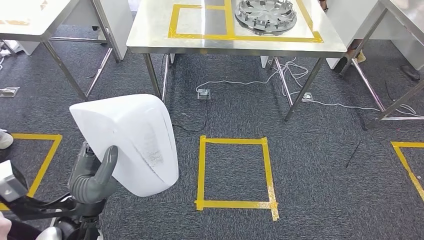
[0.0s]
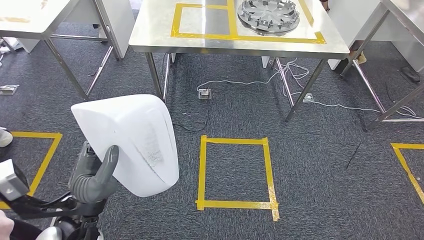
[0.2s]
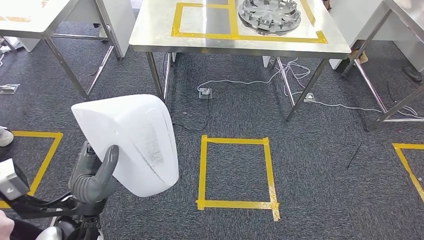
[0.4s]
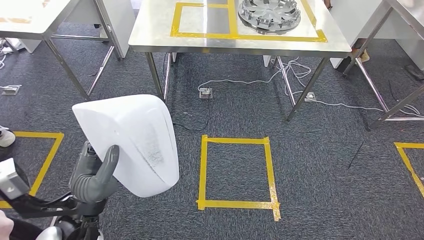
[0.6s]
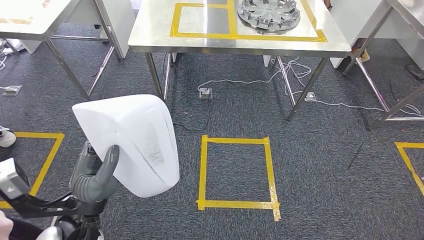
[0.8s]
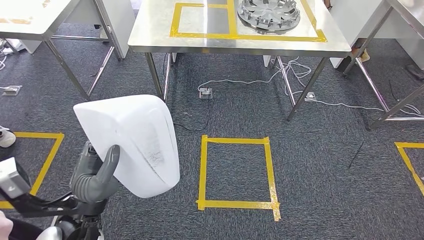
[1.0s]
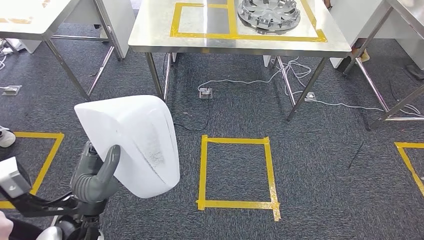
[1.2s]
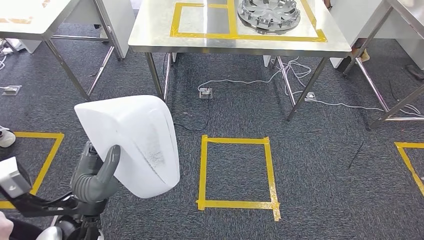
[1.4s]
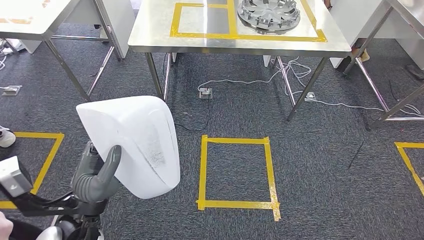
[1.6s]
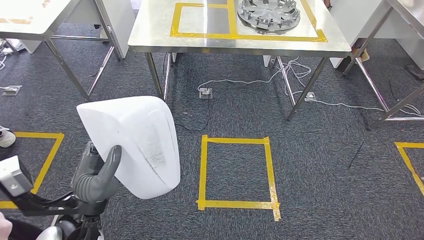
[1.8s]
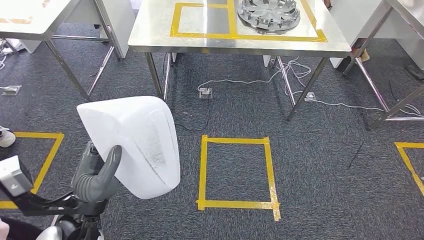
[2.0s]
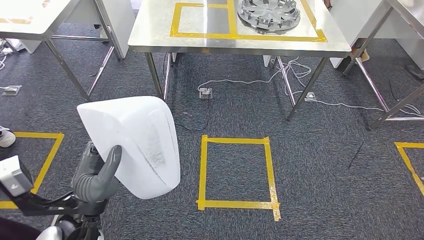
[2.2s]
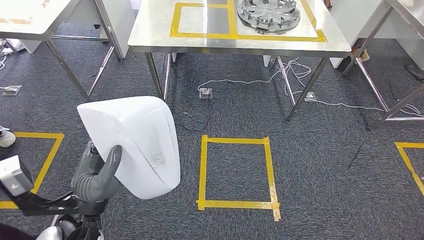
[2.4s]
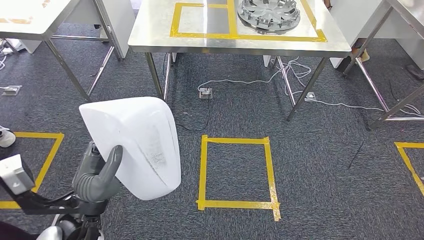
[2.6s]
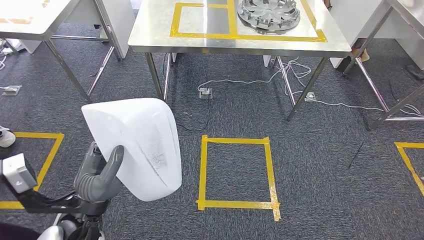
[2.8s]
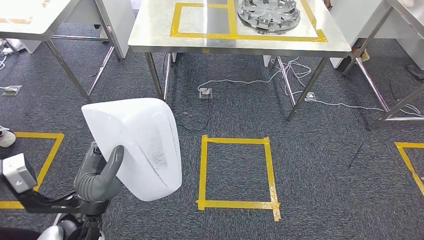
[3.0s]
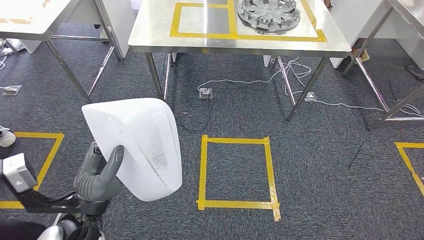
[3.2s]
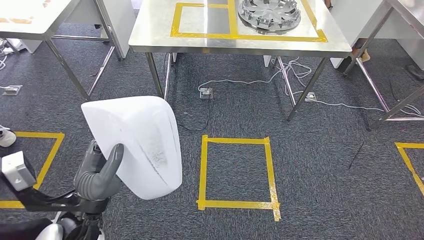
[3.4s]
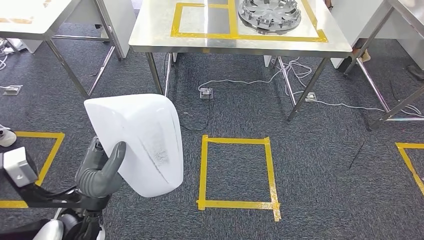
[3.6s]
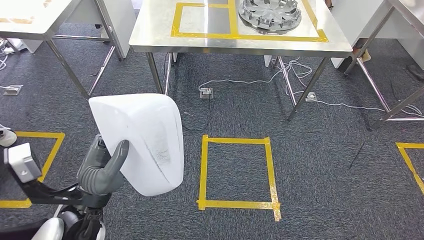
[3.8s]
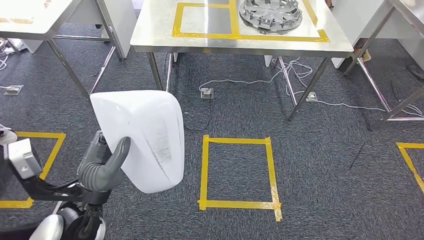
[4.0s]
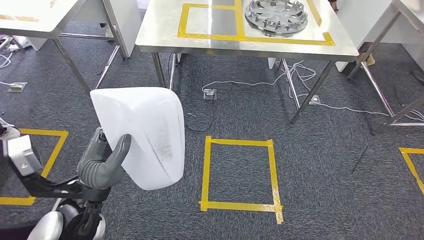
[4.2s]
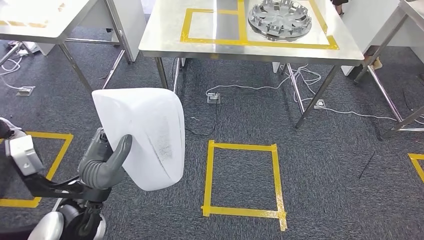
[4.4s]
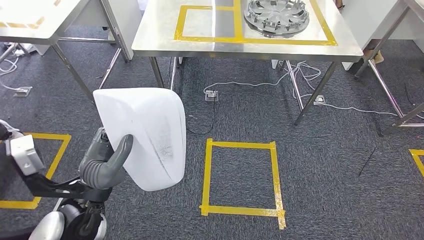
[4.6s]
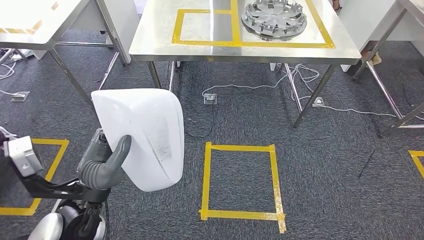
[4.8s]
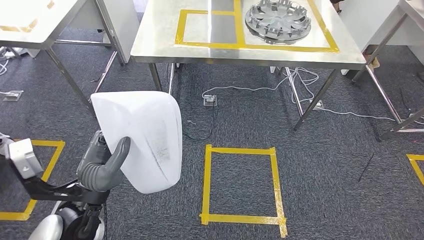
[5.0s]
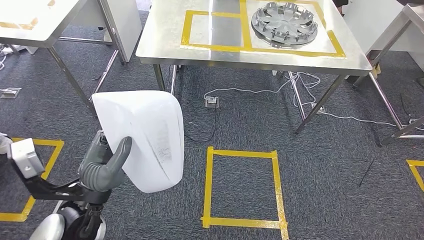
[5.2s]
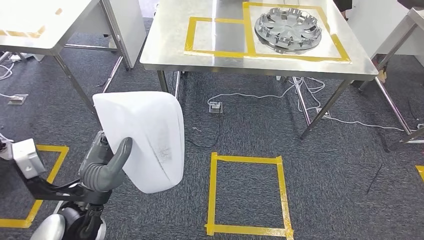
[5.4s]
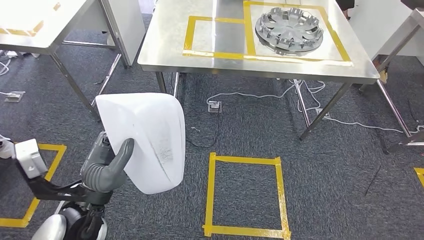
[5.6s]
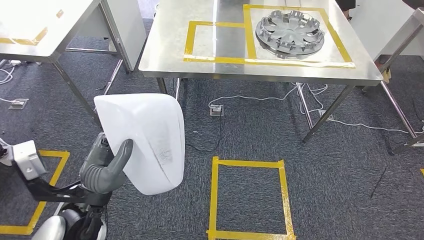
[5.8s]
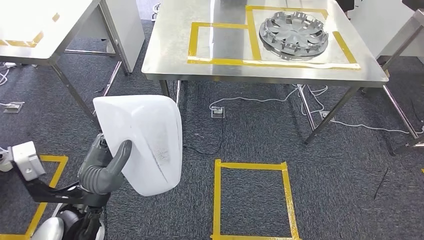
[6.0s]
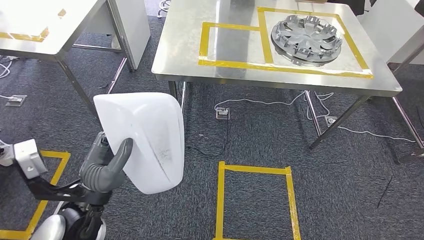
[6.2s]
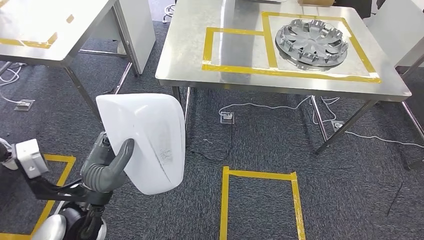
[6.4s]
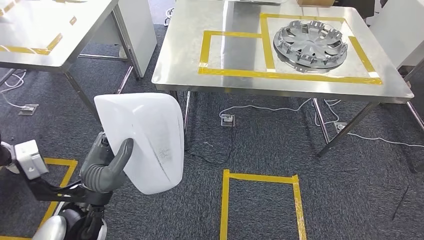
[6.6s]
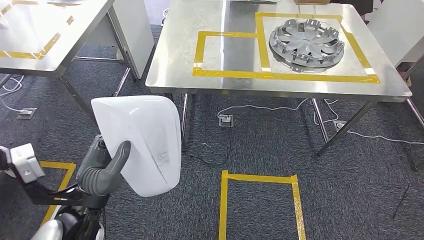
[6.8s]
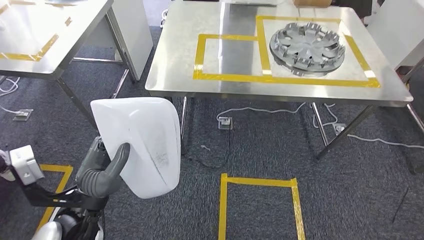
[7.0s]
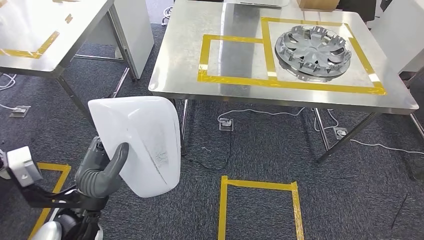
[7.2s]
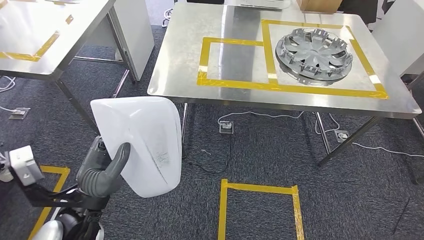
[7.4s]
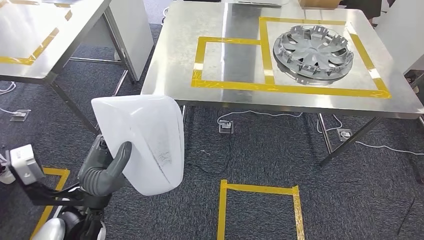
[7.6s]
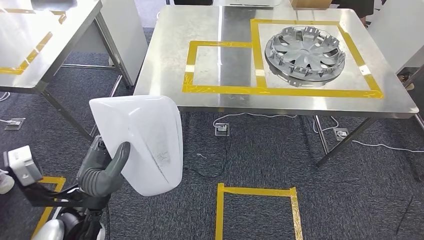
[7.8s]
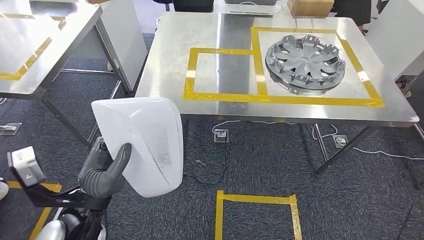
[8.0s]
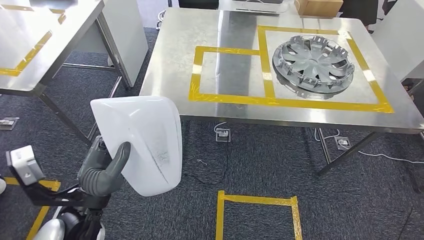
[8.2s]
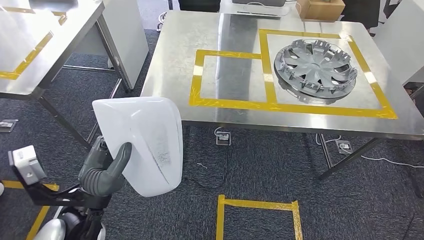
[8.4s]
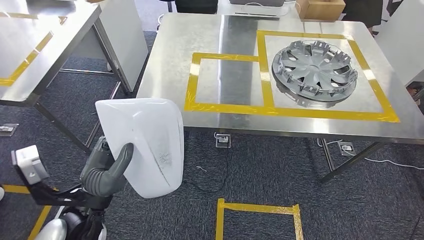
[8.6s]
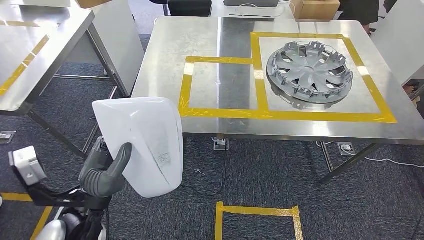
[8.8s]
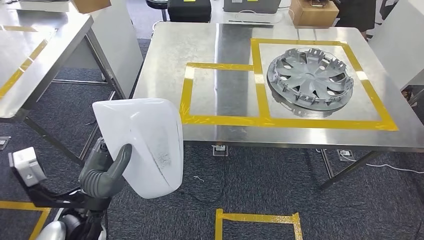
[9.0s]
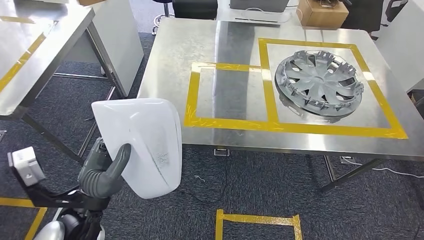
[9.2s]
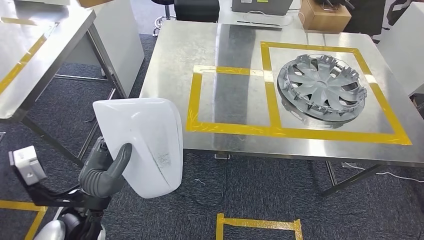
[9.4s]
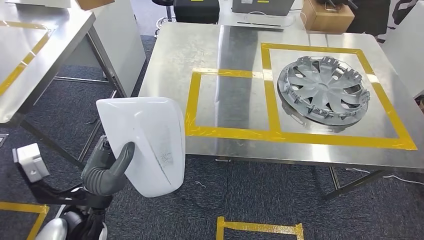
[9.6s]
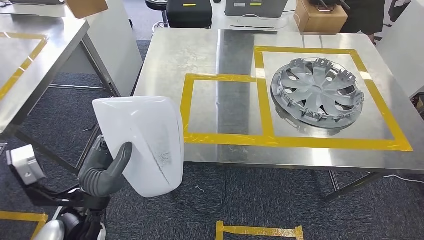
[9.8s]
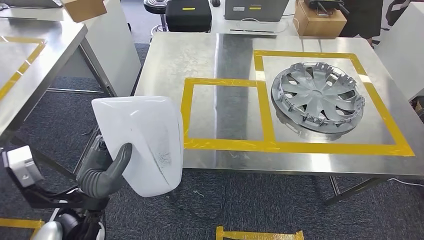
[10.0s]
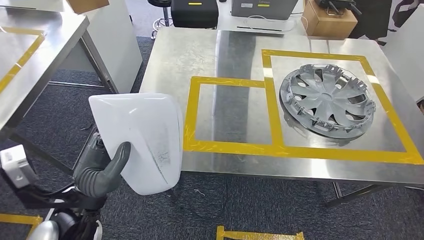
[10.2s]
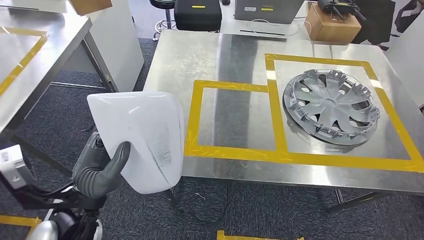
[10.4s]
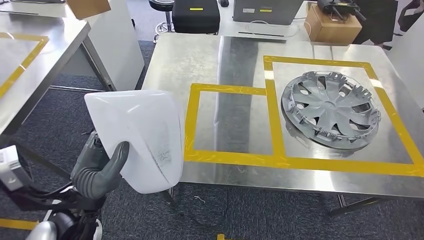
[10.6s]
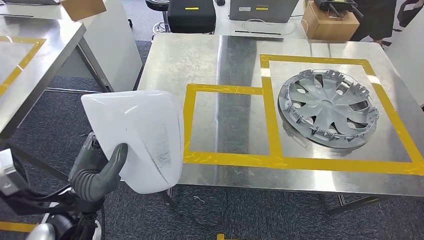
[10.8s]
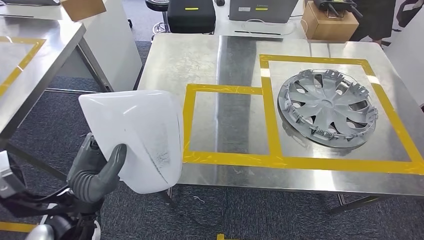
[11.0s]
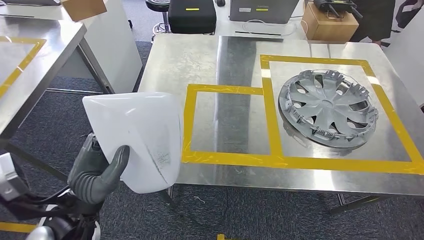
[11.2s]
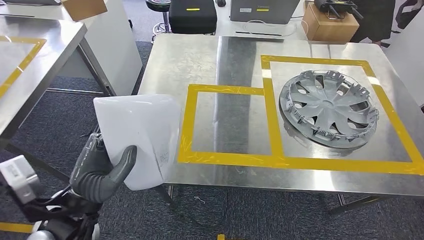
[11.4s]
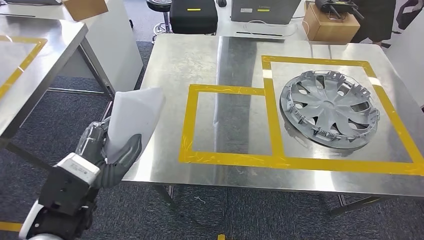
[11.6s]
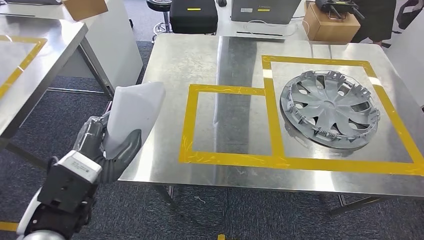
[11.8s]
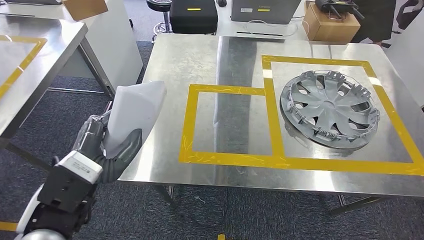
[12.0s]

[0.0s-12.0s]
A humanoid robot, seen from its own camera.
Step, 0.0s to 10.6s: Move the small component to the workbench.
0.0s to 1.6s: Both hands stay put.
1.6s to 3.0s: The two hands keep their place.

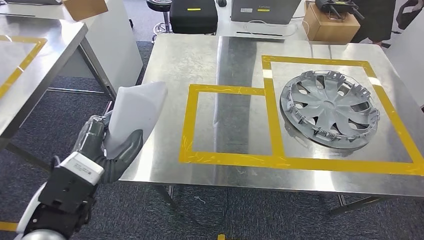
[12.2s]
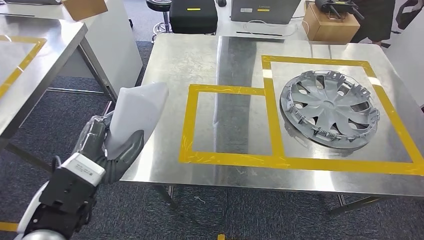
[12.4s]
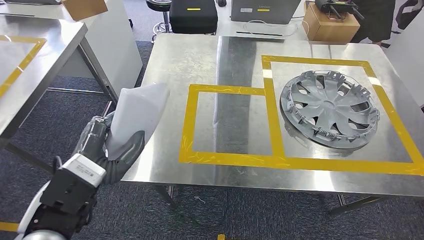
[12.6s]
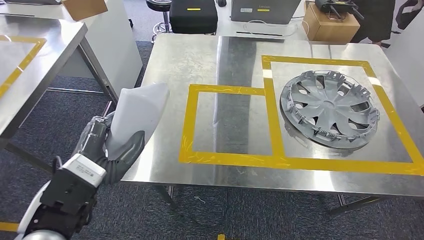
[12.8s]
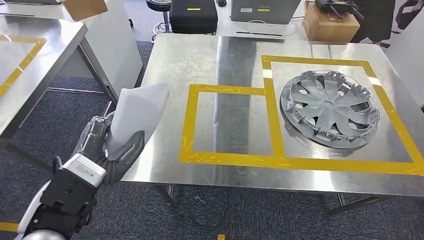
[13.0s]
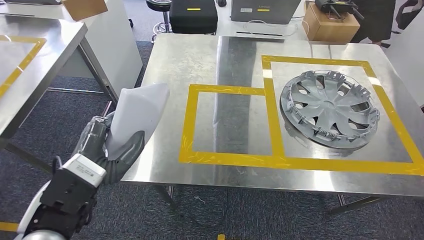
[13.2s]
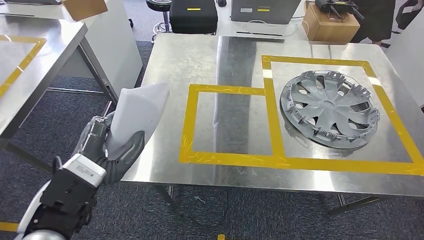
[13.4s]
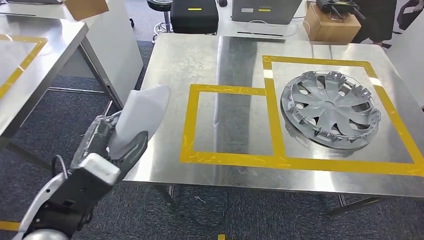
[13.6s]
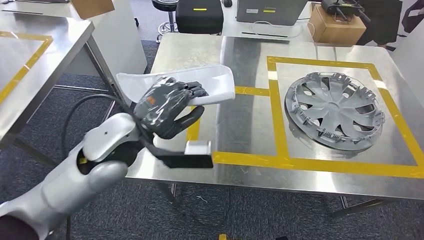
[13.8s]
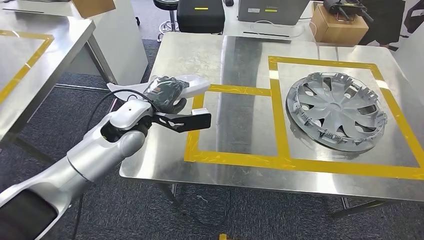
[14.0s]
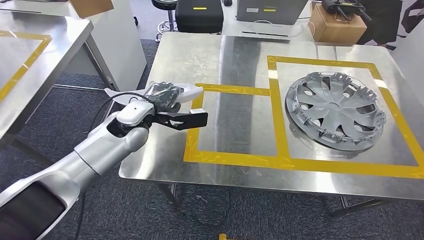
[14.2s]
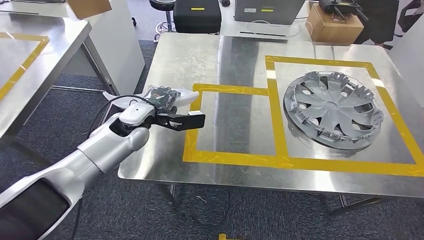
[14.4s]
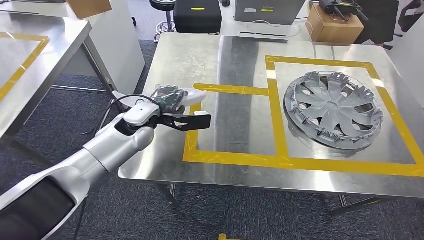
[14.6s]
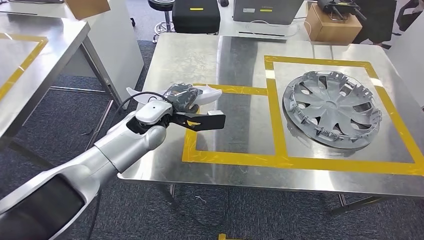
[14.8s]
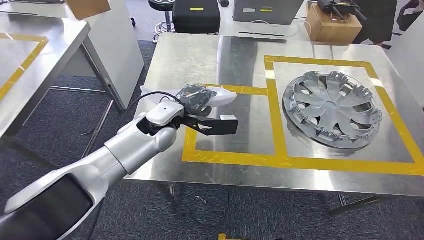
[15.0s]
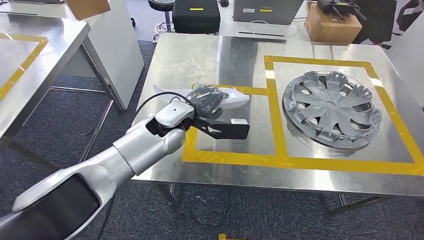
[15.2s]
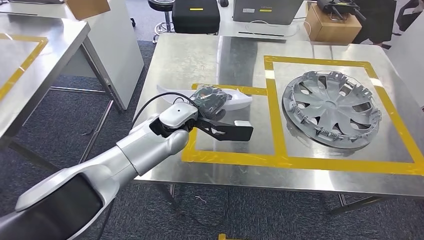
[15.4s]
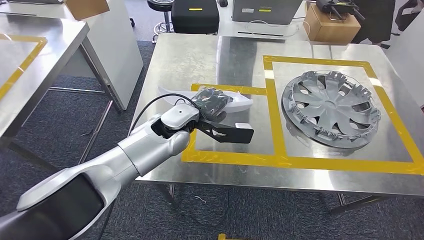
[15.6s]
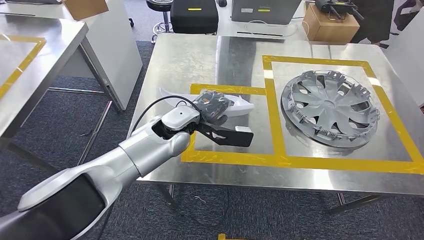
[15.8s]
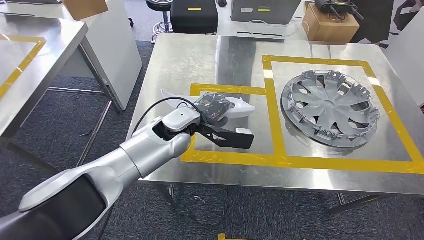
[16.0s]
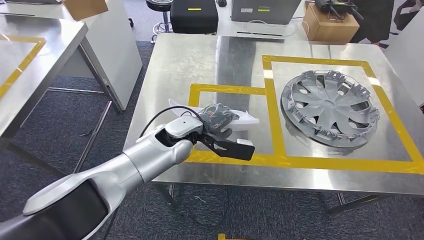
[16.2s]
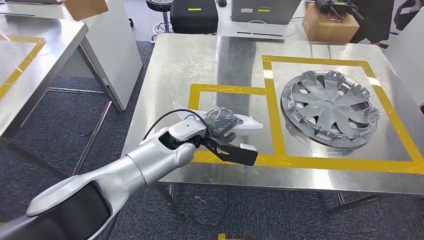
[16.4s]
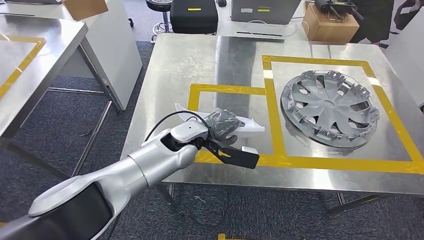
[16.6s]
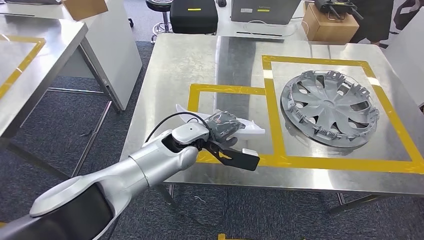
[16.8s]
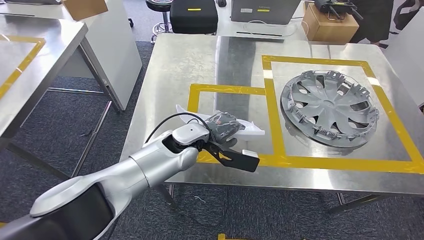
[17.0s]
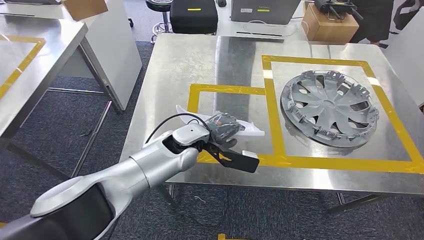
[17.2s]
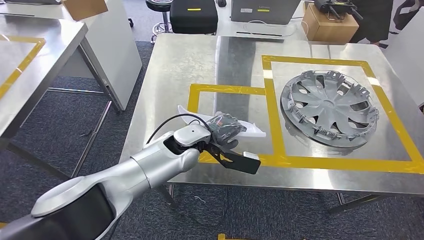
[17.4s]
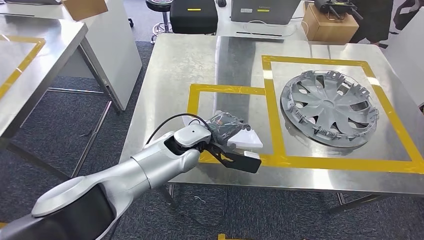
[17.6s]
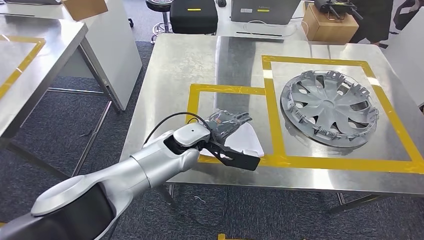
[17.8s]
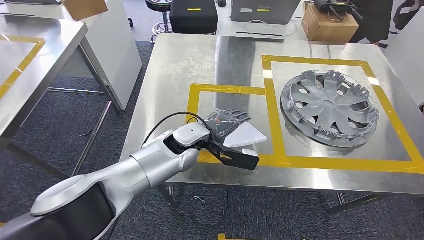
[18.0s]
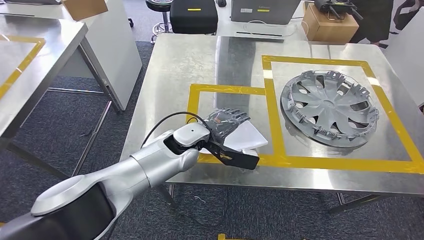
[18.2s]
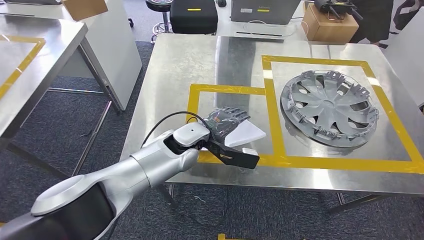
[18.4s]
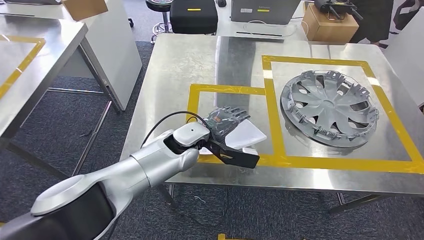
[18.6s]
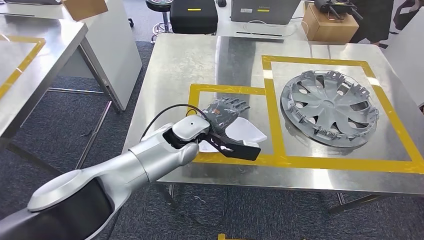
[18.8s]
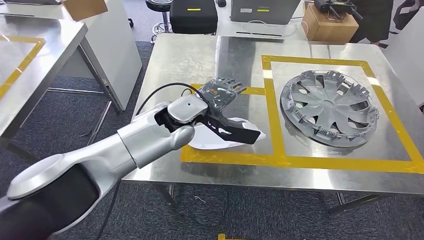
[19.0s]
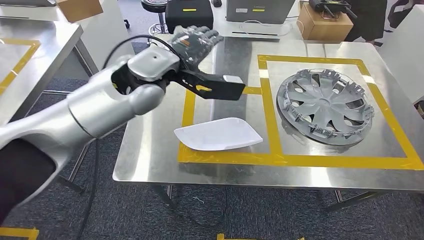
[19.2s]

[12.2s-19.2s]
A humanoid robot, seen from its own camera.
12.2s to 13.6s: The hands stay close to where they were, moving slightly.
13.6s to 15.0s: The left hand moves forward and to the right, roughly 25 cm.
16.4s to 17.8s: The hands move only a little.
